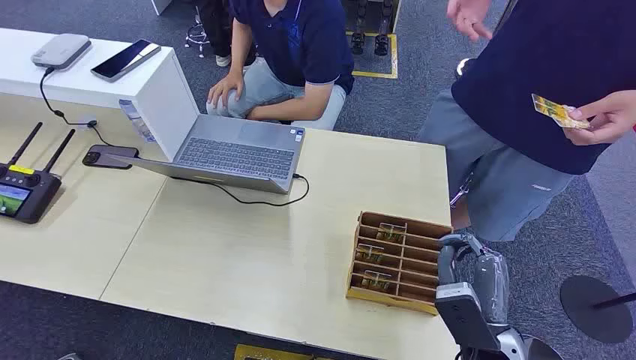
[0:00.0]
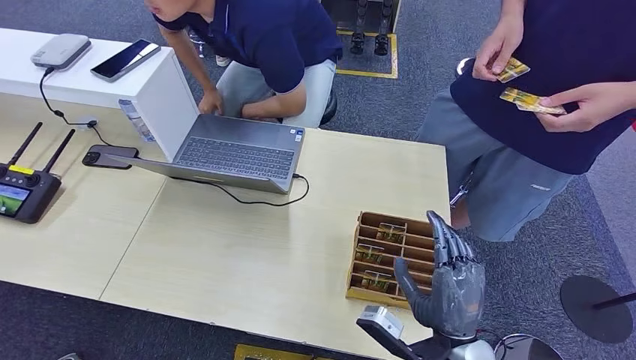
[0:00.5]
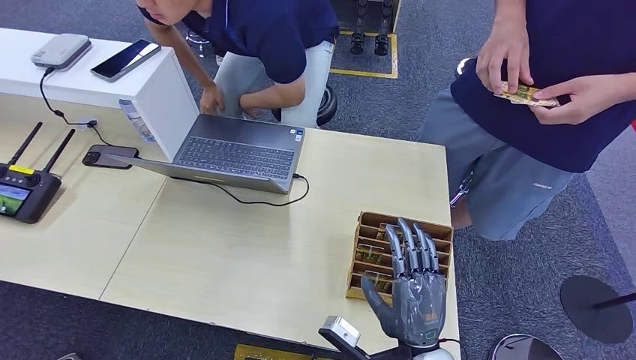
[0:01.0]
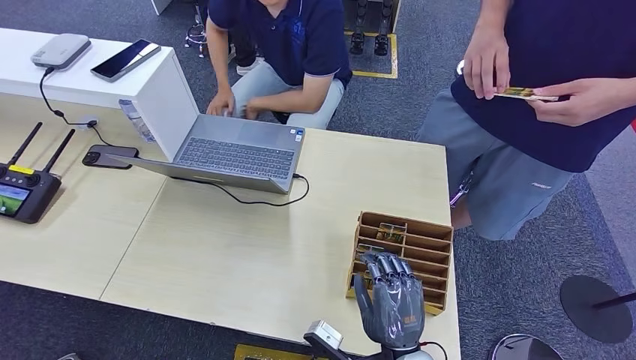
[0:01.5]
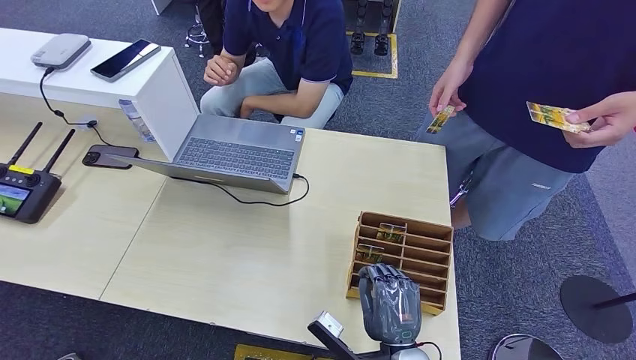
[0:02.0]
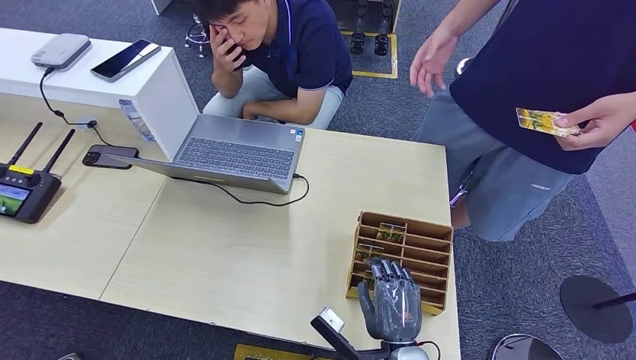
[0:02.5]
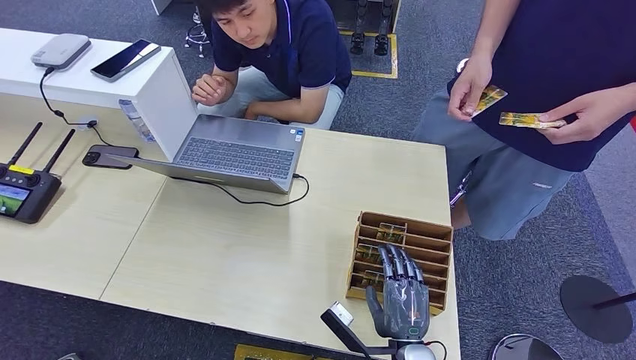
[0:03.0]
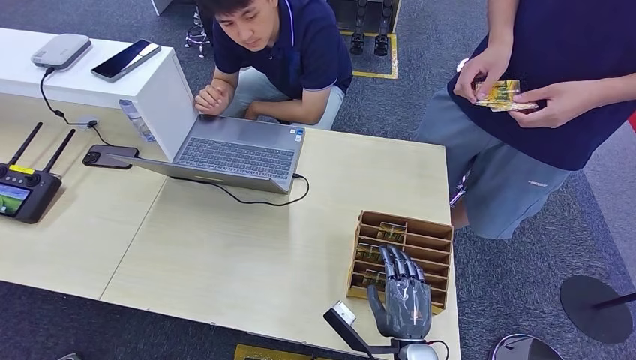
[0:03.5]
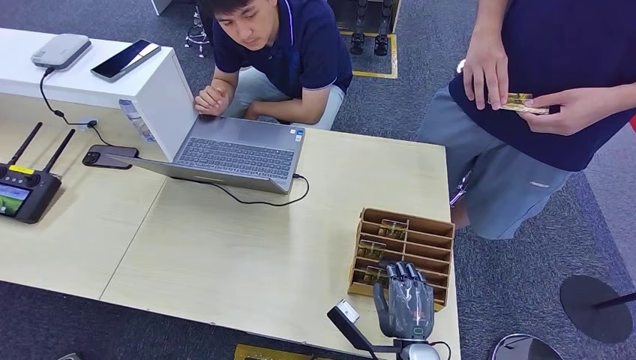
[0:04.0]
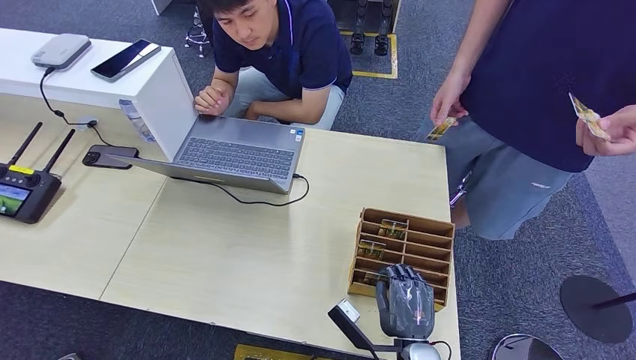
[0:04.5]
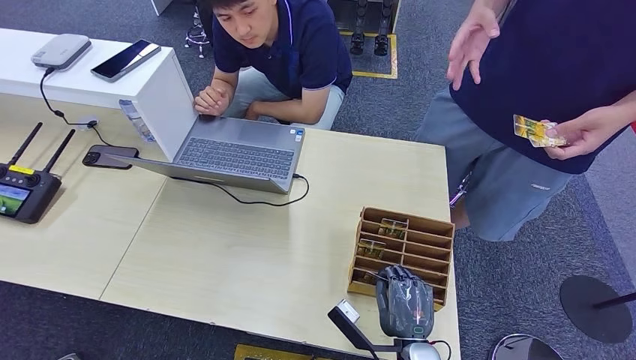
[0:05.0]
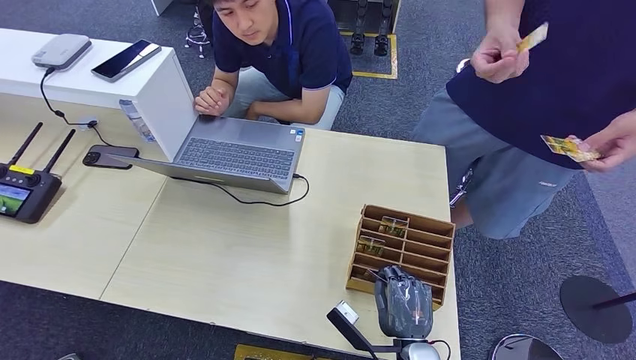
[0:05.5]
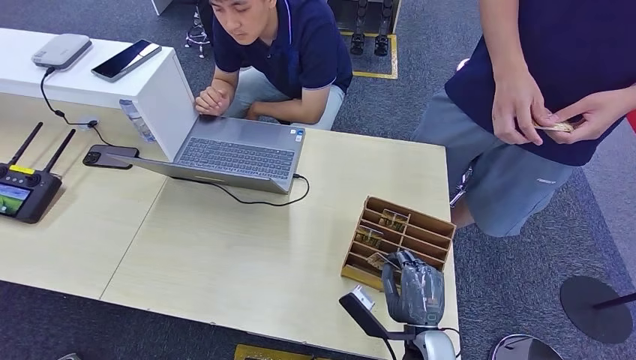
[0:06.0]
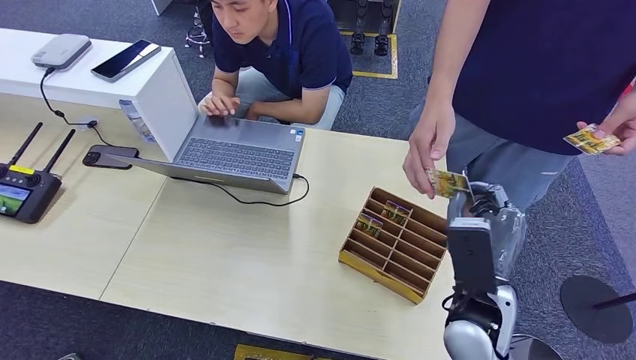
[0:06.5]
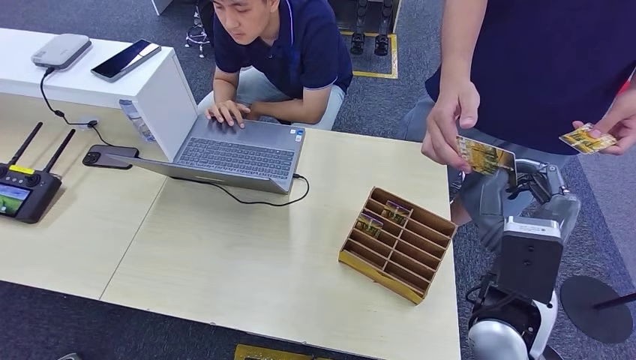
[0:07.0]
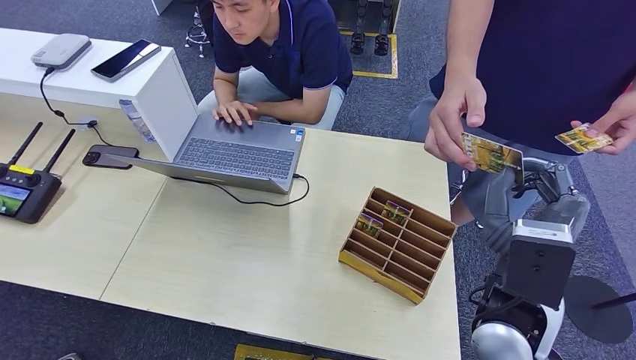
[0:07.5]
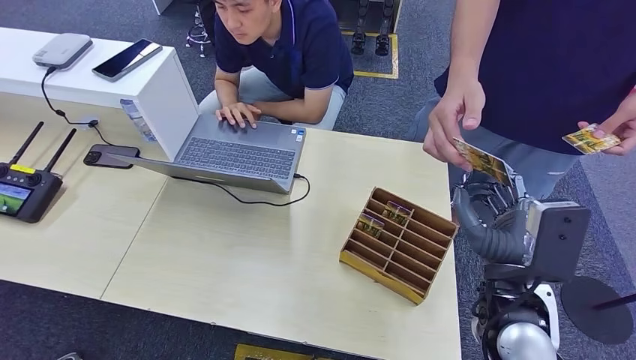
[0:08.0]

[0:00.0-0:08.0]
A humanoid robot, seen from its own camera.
Step, 0:00.0 to 0:06.0: Pick up the key card from the card box.
Step, 0:06.5 to 0:08.0: Hand the key card to the target.
0:02.0 to 0:06.0: There are only small adjustments of the hands.
0:06.0 to 0:08.0: The right hand goes some 15 cm upward.
